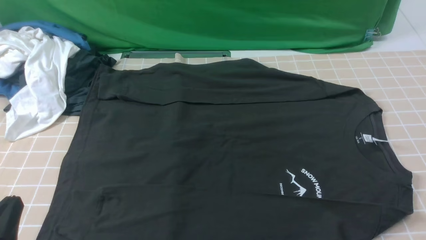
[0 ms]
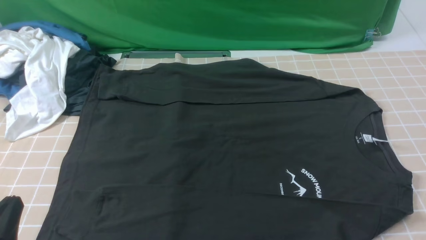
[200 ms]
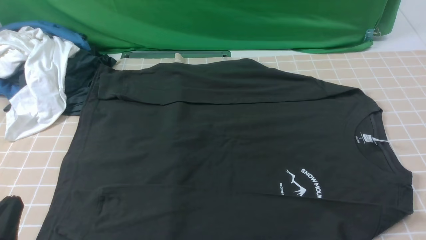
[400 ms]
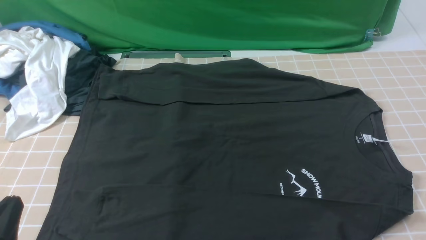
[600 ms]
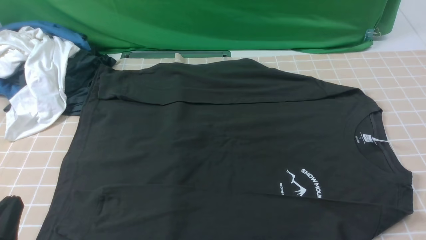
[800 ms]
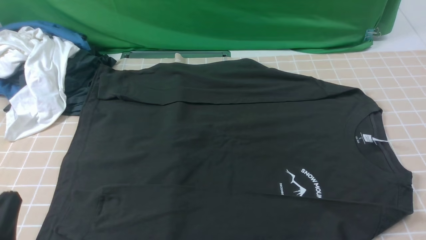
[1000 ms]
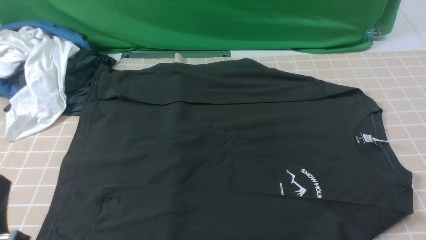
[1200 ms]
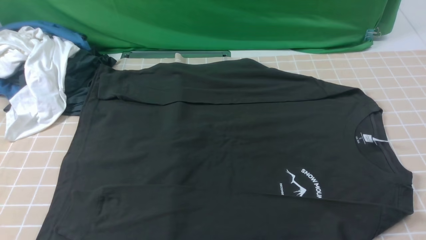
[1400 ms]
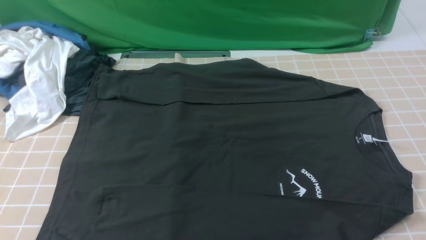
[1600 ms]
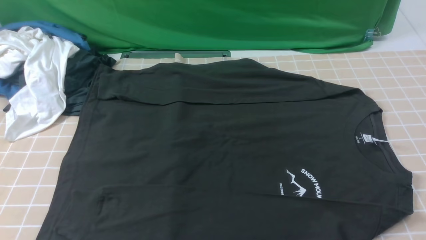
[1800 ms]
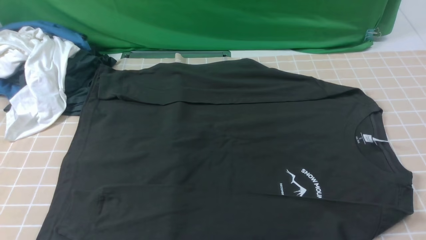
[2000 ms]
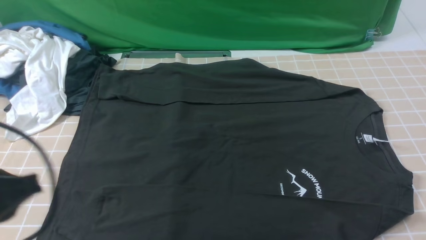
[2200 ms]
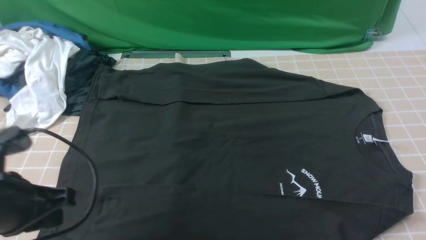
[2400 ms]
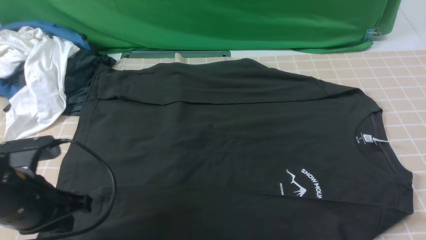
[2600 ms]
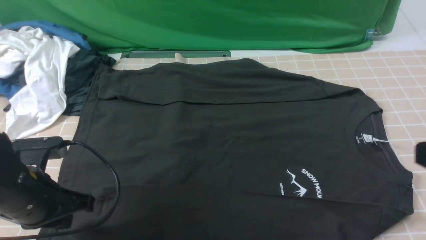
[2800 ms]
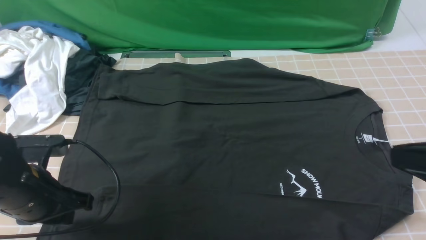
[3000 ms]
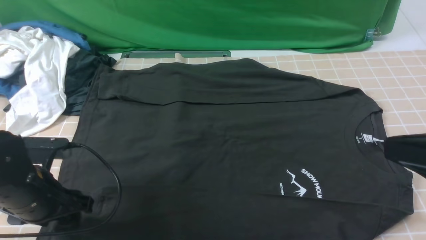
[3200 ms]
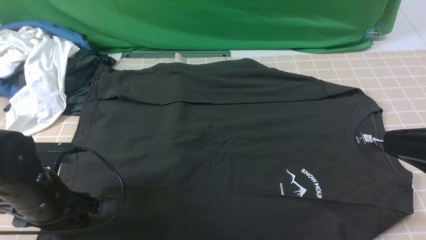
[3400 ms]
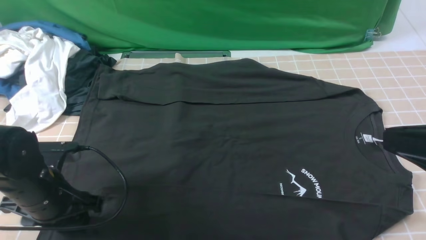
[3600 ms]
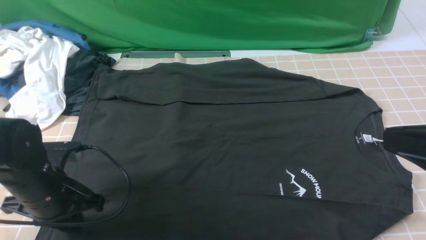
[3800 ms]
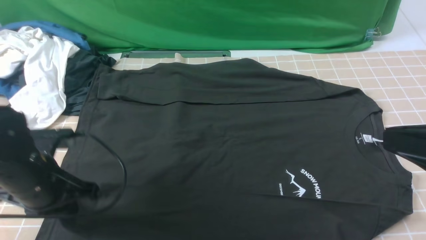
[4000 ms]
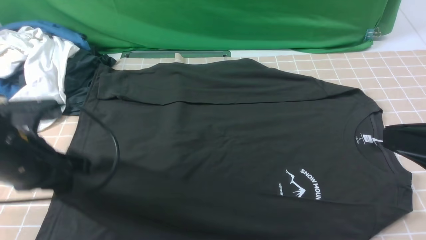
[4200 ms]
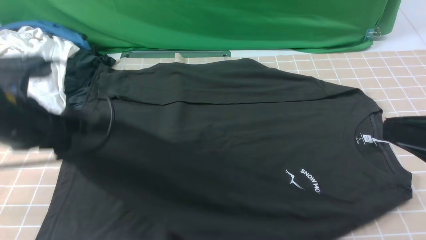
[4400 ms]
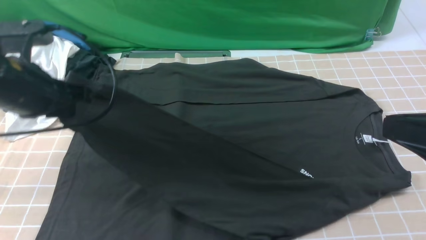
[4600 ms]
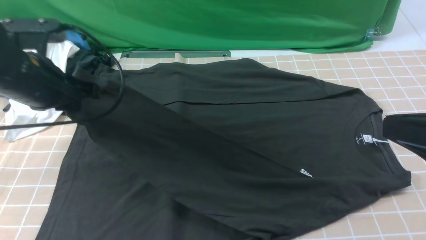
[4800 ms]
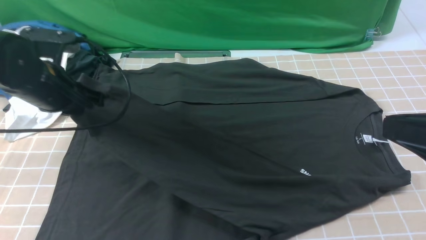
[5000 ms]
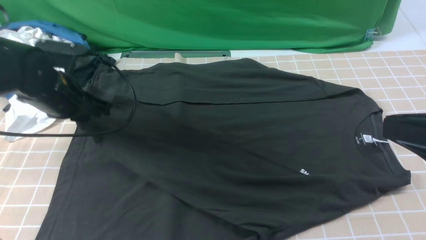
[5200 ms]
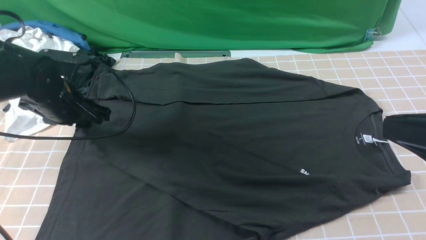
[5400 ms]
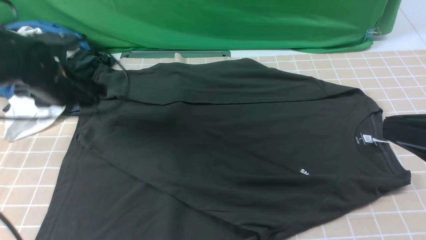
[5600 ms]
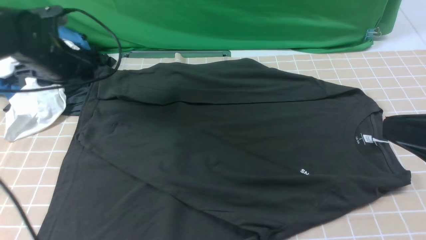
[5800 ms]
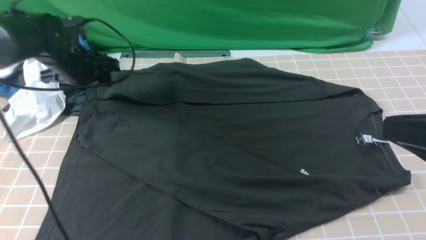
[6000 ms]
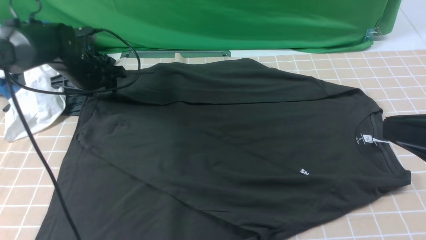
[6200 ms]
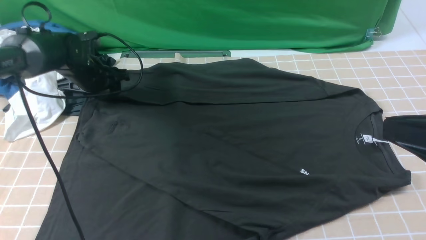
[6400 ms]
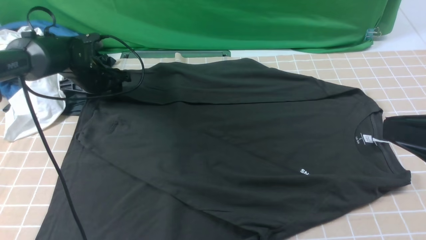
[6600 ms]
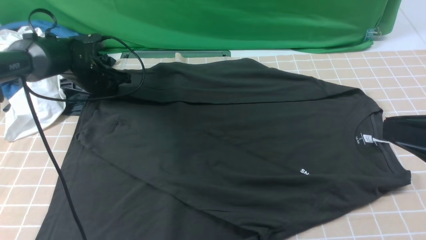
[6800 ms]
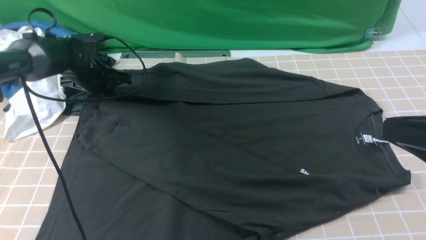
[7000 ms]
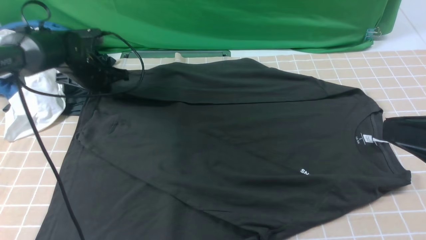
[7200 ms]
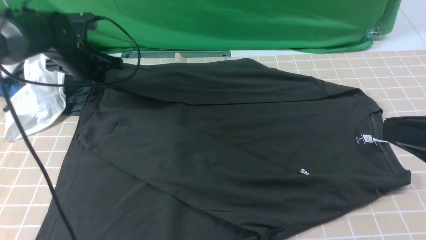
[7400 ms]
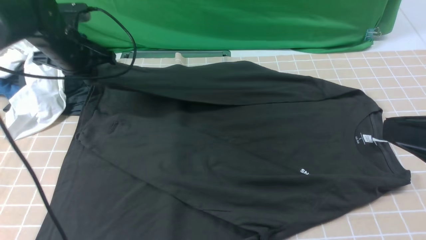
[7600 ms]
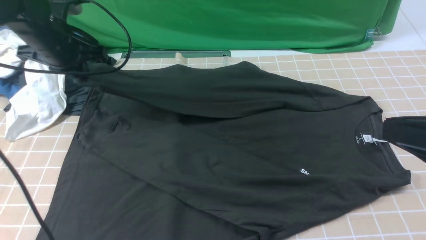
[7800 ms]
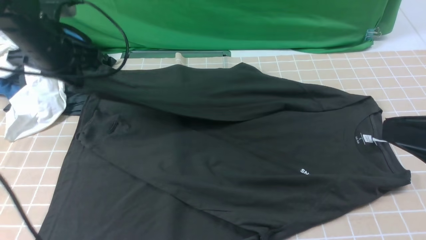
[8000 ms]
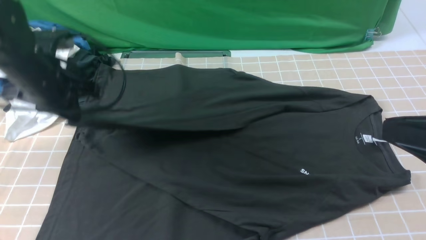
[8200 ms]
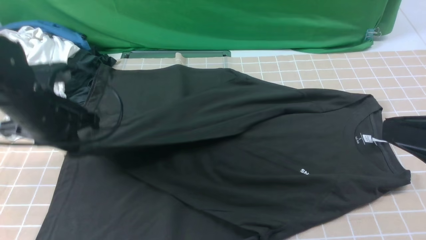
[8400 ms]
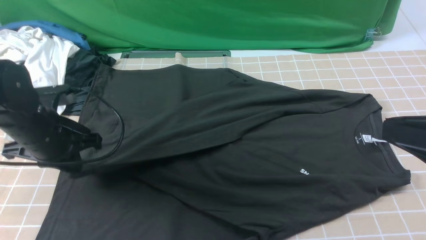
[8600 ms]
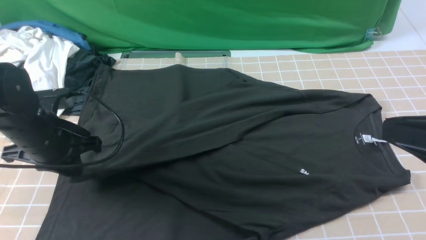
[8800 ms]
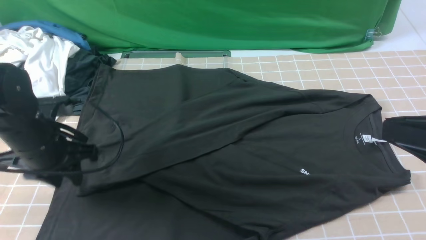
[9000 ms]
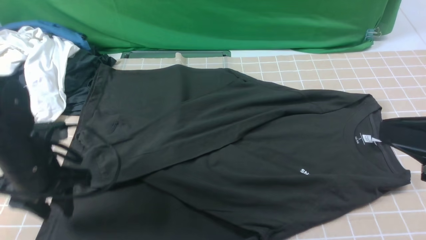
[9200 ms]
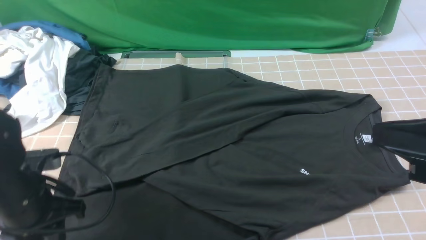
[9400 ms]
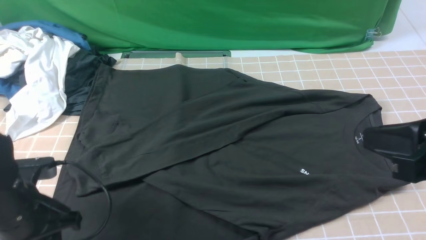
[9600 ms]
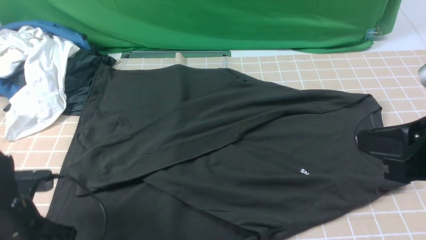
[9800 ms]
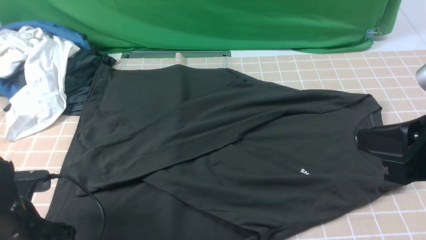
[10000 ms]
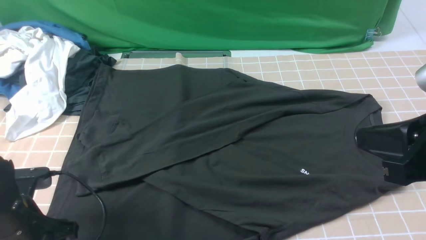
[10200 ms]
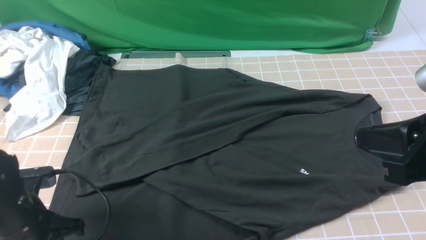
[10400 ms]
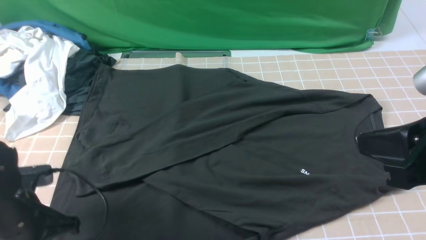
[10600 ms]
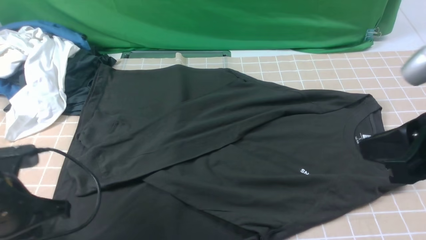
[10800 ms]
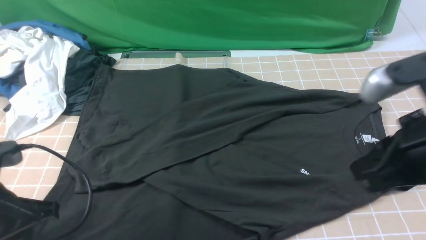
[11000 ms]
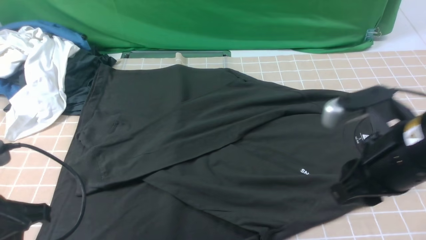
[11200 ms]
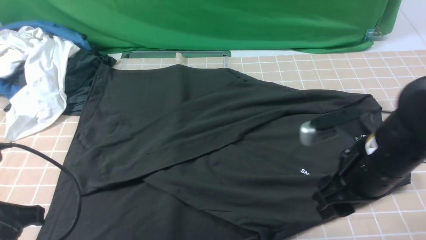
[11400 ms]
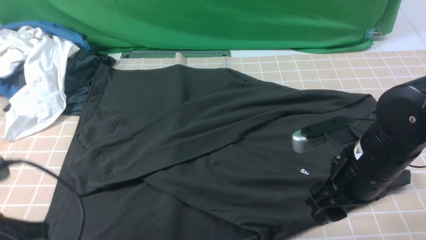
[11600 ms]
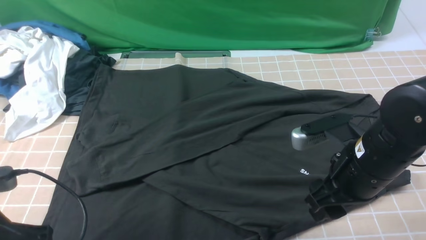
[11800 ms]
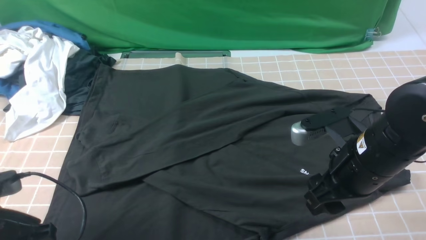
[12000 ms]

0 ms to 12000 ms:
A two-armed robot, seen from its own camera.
Step, 0 ms to 3600 ms: use the left arm to clamp the cuff closest to it.
Step, 4000 ms to 5400 ms: use the left arm to drag and place the cuff at the centered position on the left edge of the fabric.
Step, 5600 ms to 7000 ms: use the left arm to clamp the cuff farthest from it.
Step, 7200 ms to 8800 ms: use the left arm to drag and drop the cuff onto the cuff closest to the left arm.
0 ms to 1600 ms: The left gripper shifts roughly 5 cm upward.
1600 ms to 3000 ms: The right gripper goes roughly 15 cm upward, to the left and forward, and closes, while the left gripper heads forward and downward, covering roughly 15 cm, and opens up.
3000 ms to 4400 ms: The left gripper moves upward, some 10 cm, and opens, then closes again.
4400 ms to 6000 ms: The left gripper is displaced forward by approximately 20 cm, and opens its fingers.
6000 ms to 7600 ms: The left gripper closes up.
7600 ms to 9000 ms: The left gripper goes some 15 cm backward, and opens.
9000 ms to 10400 ms: The left gripper heads backward, covering some 10 cm, and opens, then closes once more.
10400 ms to 12000 ms: The right gripper goes roughly 15 cm downward, forward and to the left, and opens up. Meanwhile the left gripper closes its fingers.

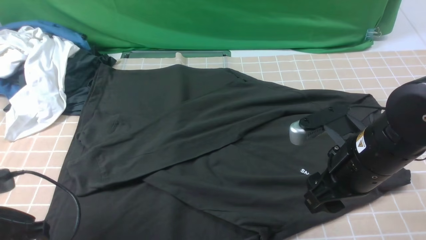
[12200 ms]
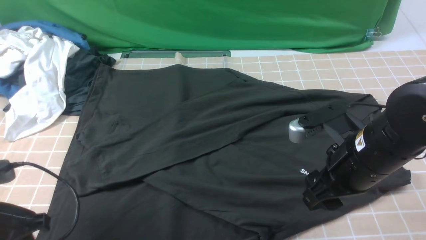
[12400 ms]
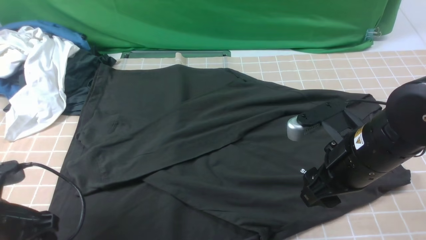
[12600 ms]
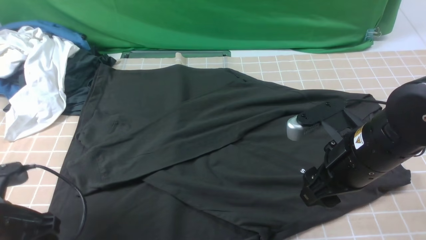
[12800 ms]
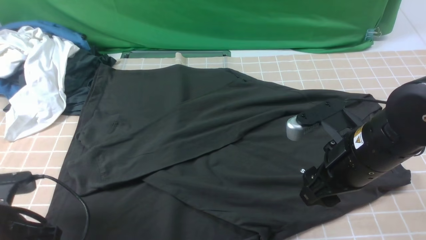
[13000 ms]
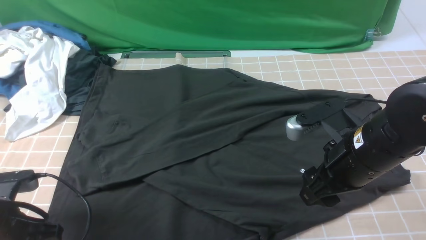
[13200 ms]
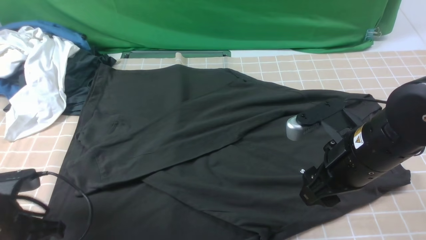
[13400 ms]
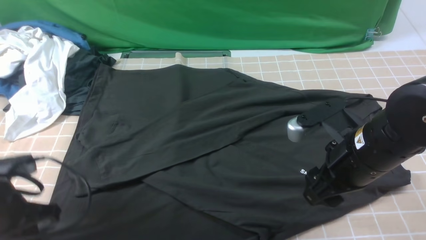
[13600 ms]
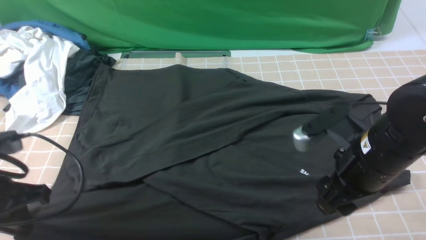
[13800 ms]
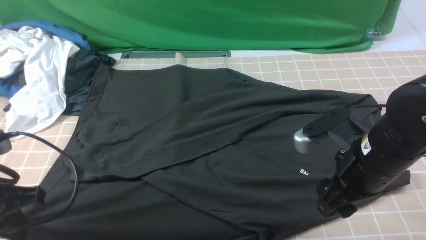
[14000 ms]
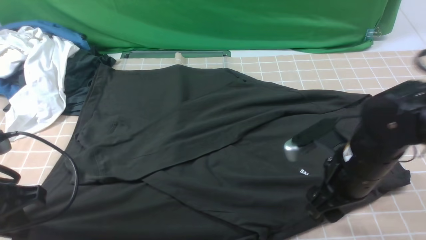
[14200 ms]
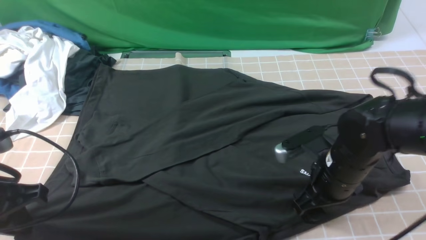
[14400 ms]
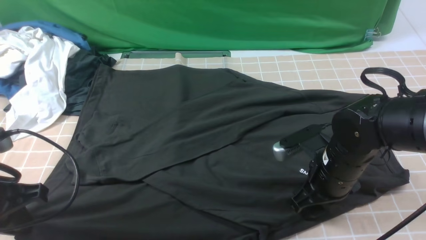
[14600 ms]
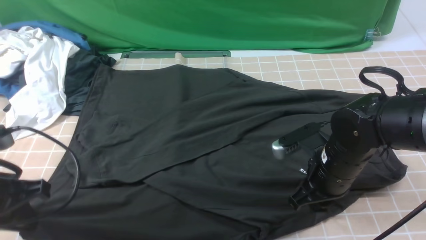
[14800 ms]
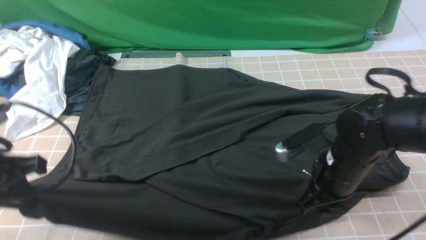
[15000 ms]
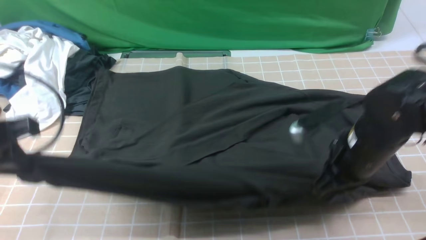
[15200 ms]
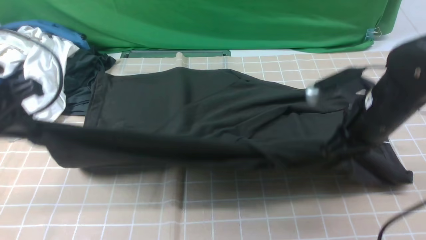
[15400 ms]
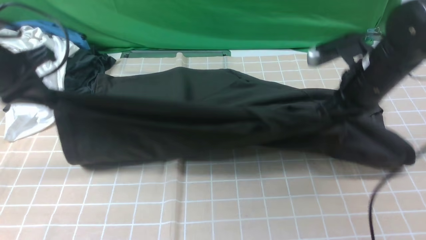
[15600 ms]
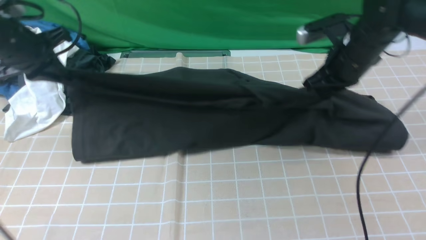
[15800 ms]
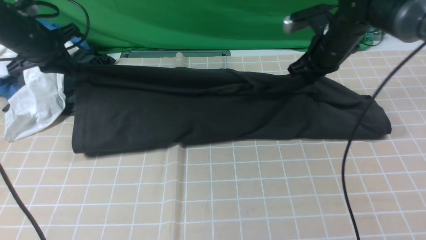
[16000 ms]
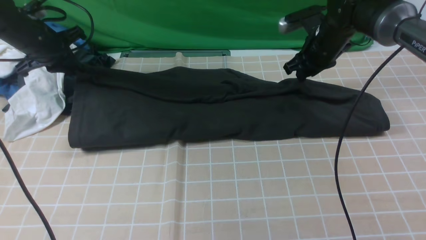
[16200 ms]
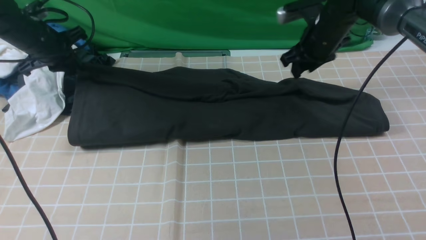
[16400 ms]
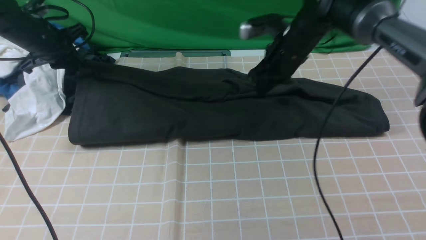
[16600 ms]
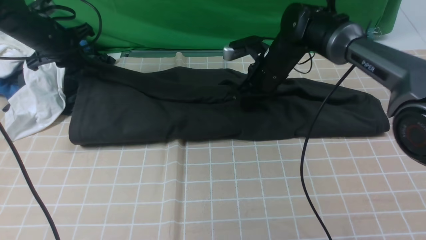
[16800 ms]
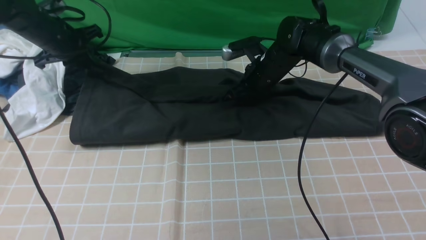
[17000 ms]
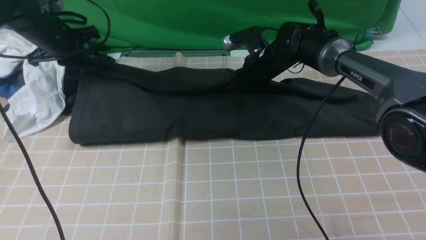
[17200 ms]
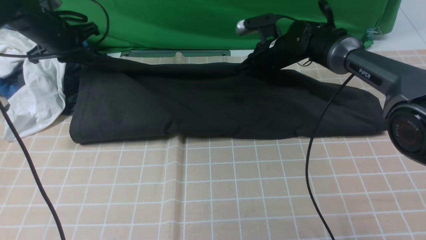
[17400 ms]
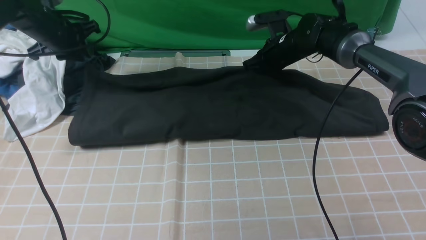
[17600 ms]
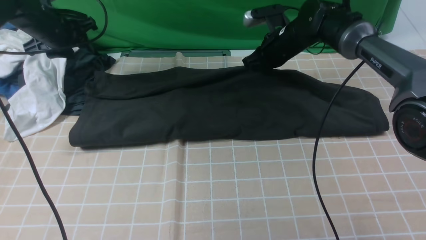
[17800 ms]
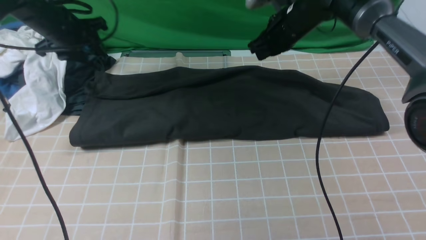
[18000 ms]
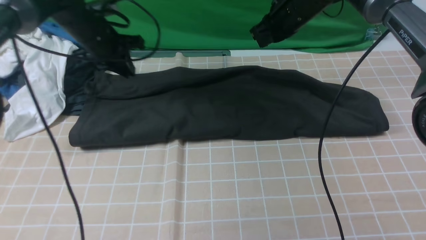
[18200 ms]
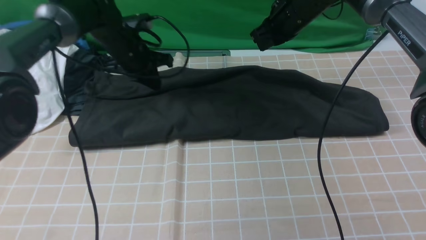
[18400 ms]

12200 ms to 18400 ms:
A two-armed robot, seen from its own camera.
Step, 12200 ms to 14600 ms: use both arms simultaneously to clamp the lower edge of the clothing fabric.
Step, 15000 ms to 17600 ms: use both arms to drag the lower edge of the fabric forward and fold it over the upper edge.
12200 ms to 13800 ms: The left gripper opens, then closes once more.
13800 ms to 15400 ms: The right gripper travels forward by some 10 cm, moves some 10 cm downward and comes back, and closes up. Meanwhile the left gripper goes roughly 10 cm upward and forward.
15400 ms to 16800 ms: The right gripper moves forward and to the left, roughly 20 cm. Meanwhile the left gripper shifts roughly 20 cm forward.
16800 ms to 18400 ms: The left gripper goes approximately 15 cm to the right, and opens, then closes again, while the right gripper travels upward by roughly 10 cm.
